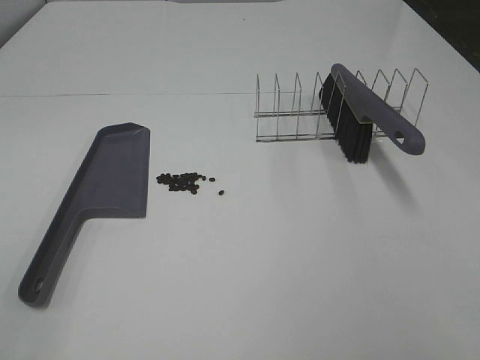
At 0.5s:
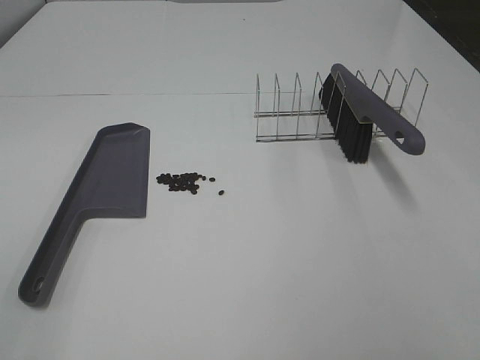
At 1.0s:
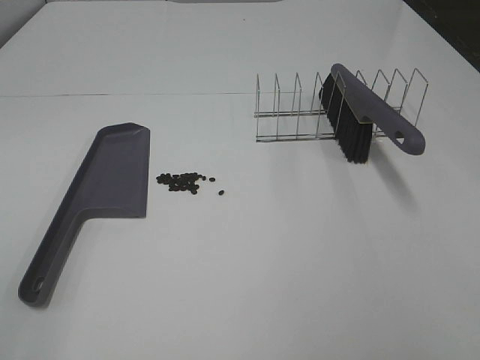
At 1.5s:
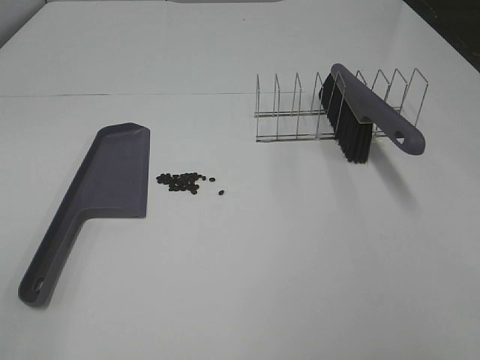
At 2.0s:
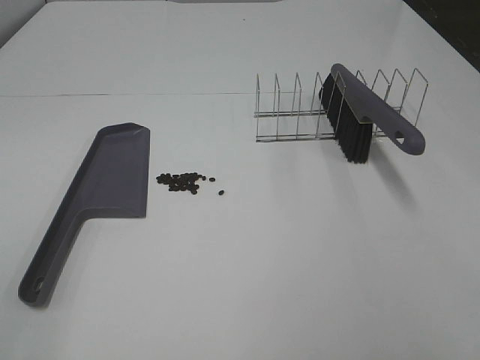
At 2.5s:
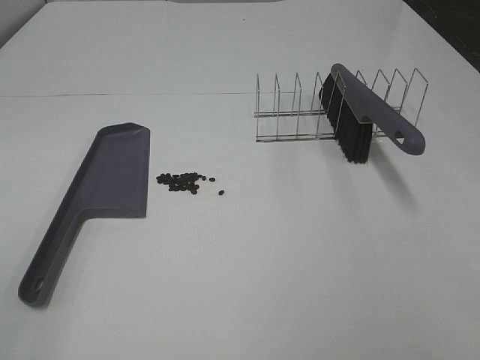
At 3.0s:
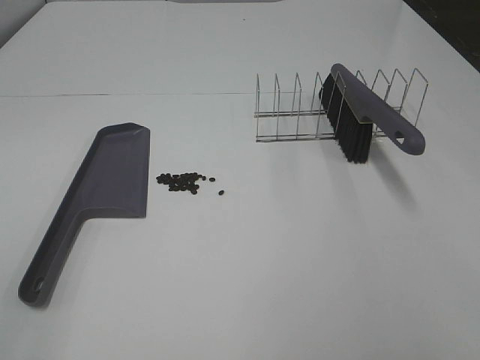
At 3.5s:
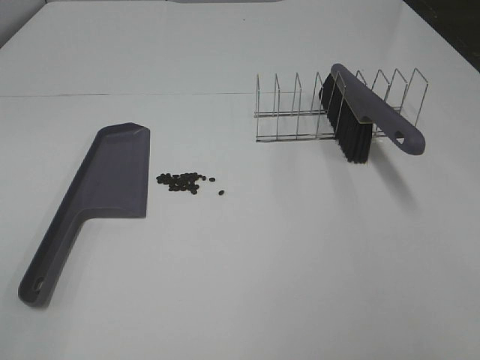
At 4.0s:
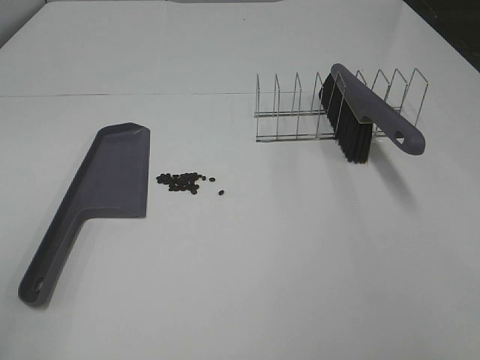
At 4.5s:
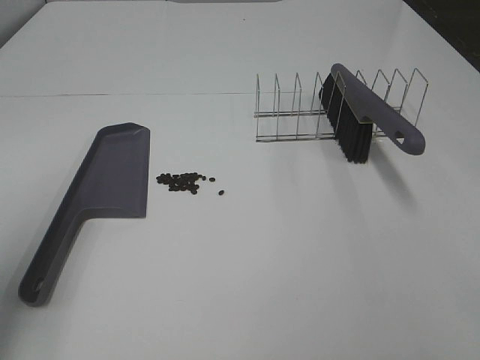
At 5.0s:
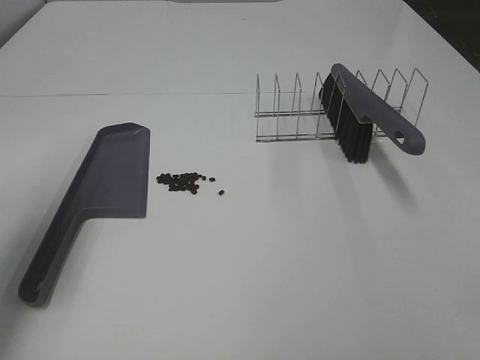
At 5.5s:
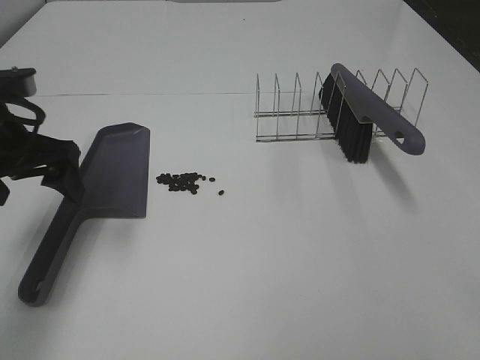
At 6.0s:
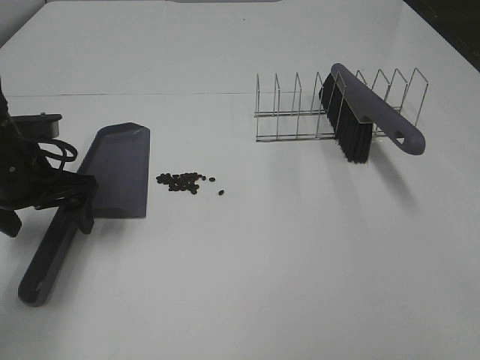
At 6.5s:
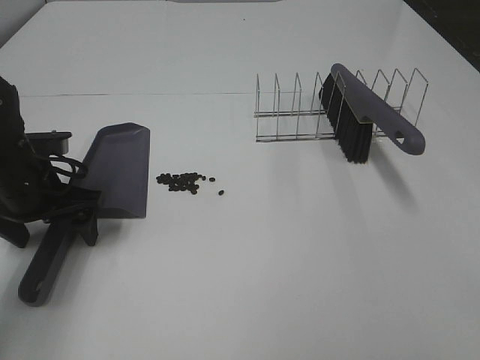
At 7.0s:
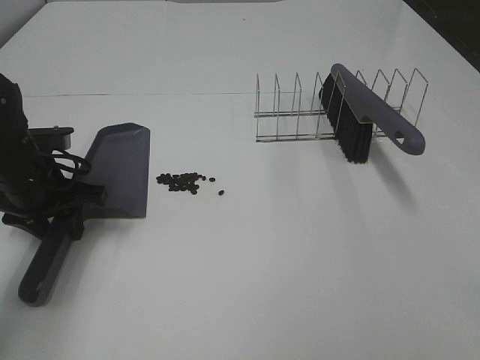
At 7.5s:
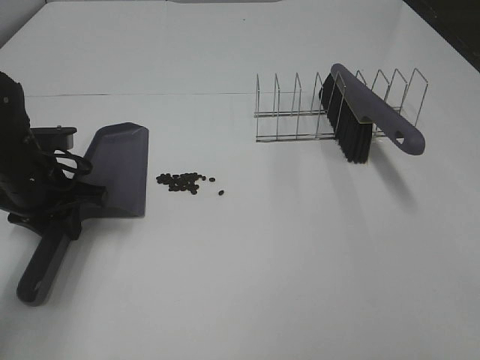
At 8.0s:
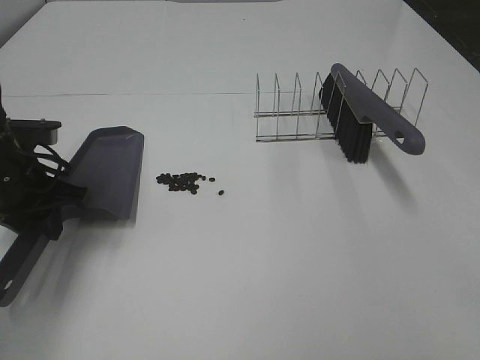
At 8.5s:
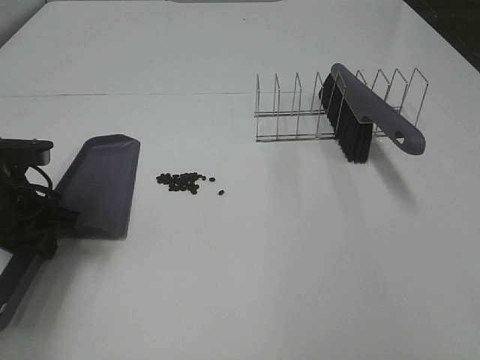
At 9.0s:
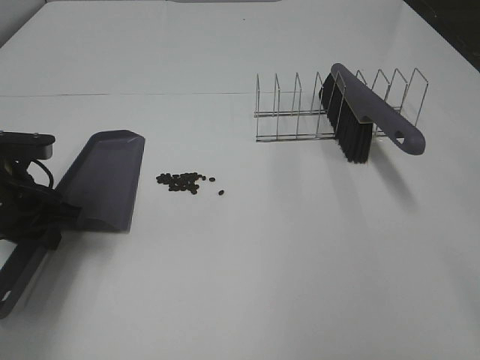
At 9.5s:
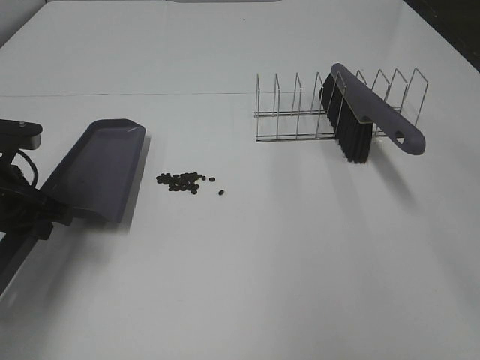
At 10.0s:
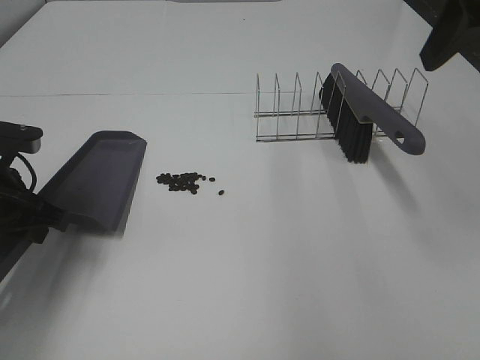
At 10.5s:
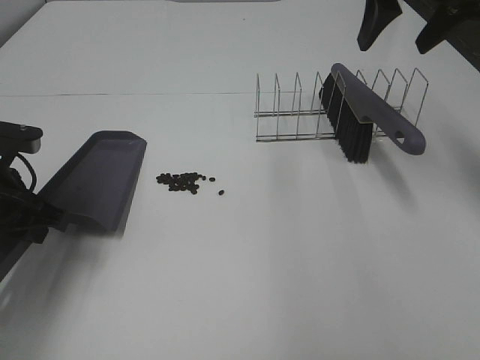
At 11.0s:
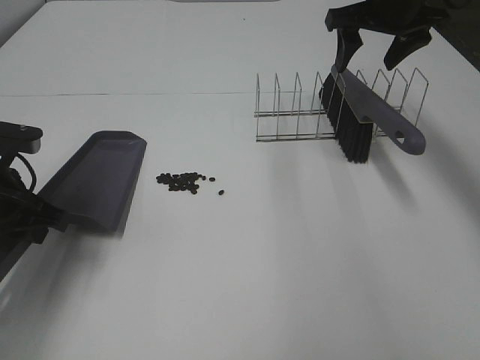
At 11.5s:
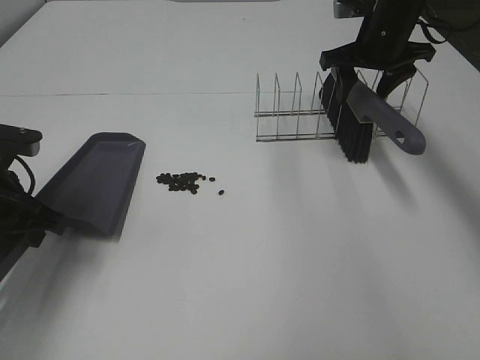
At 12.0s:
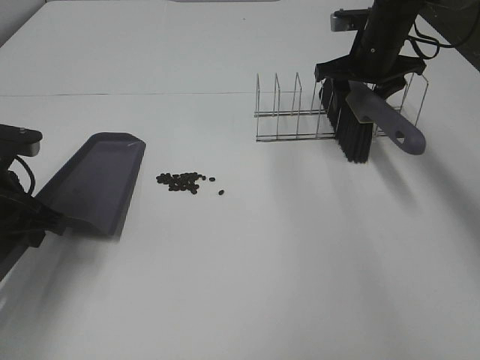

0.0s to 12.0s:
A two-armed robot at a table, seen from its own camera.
Task of the whole recording: Sweep Coffee Bean.
Step, 0.0s to 7.5s: Left hand: grab the dustpan.
0.0s to 2.0s: Both grippers stay about where they are.
4.0s to 6.0s: The left gripper goes approximately 30 cm forward and downward.
6.0s to 8.0s: The left gripper closes its fingers.
8.0s to 10.0s: The right gripper goes approximately 30 cm forward.
10.0s to 12.0s: The right gripper travels forward and downward by about 30 cm.

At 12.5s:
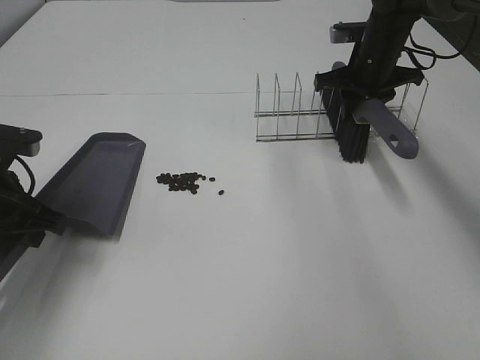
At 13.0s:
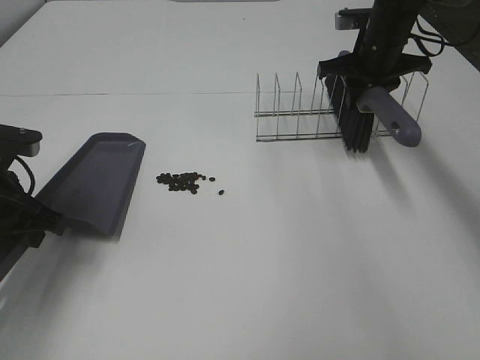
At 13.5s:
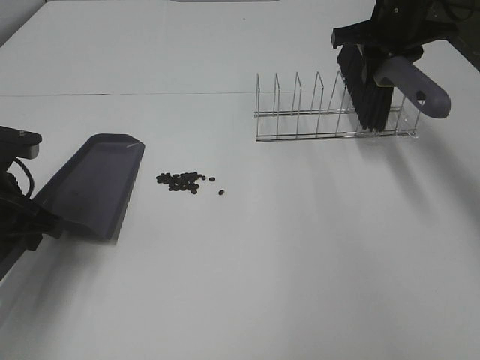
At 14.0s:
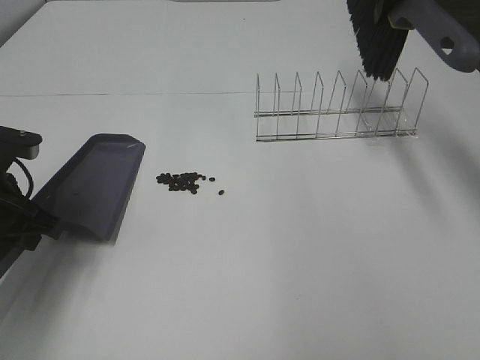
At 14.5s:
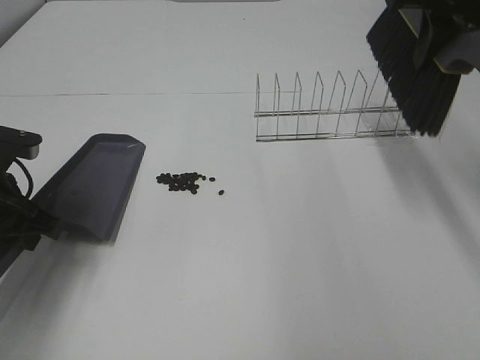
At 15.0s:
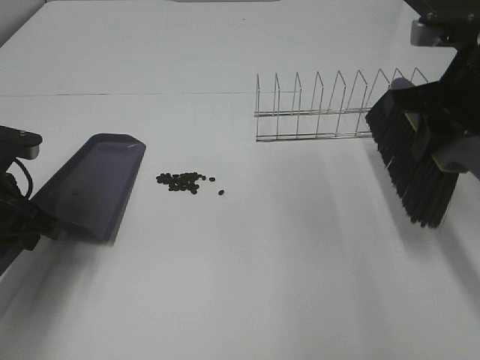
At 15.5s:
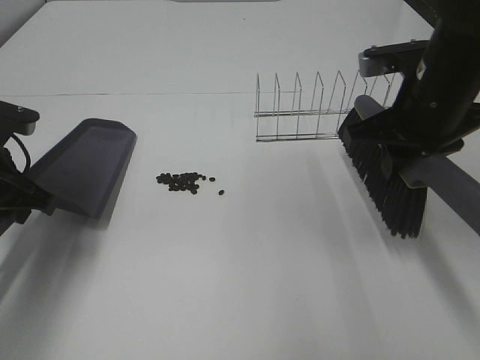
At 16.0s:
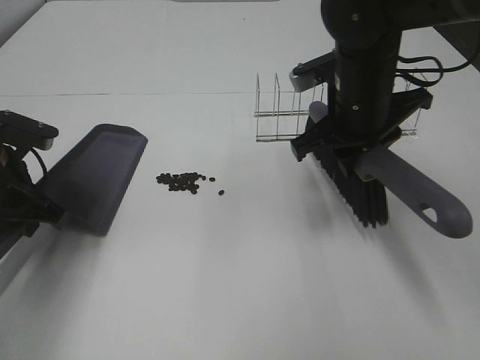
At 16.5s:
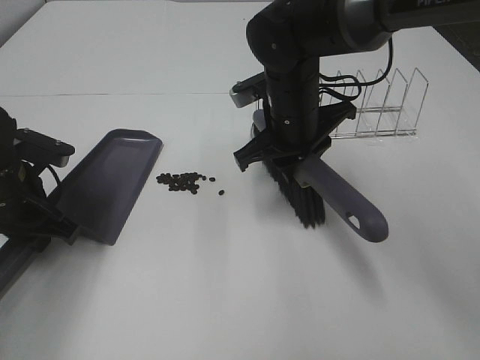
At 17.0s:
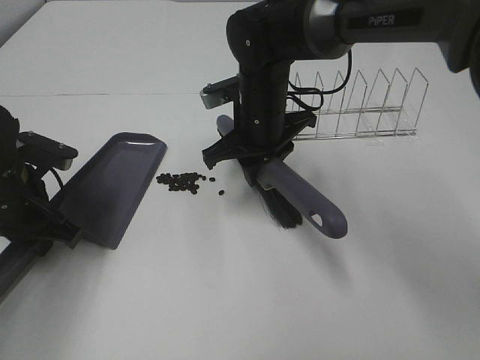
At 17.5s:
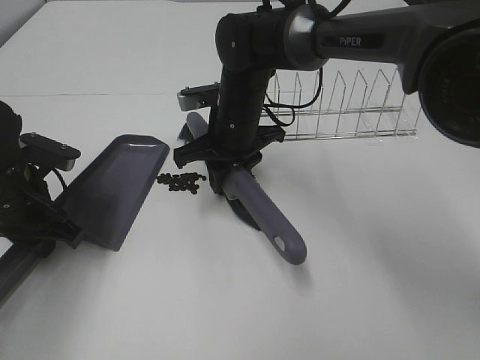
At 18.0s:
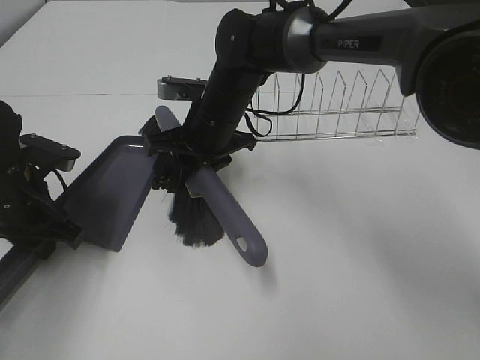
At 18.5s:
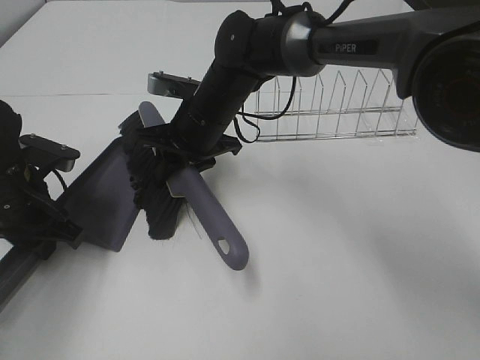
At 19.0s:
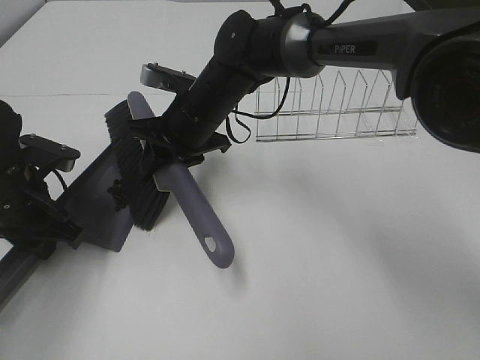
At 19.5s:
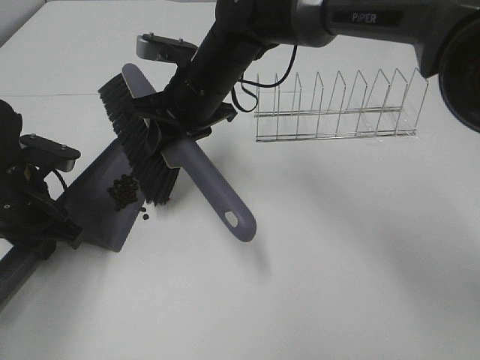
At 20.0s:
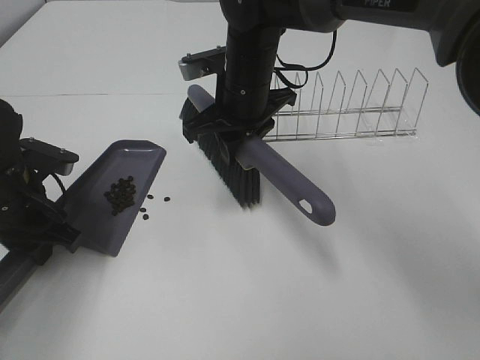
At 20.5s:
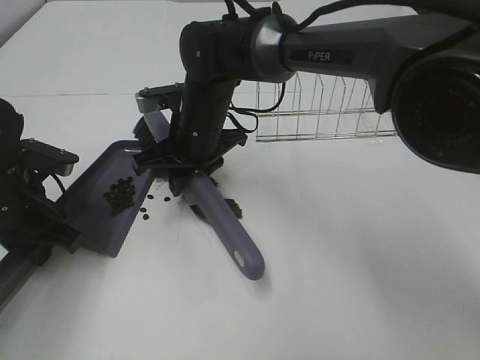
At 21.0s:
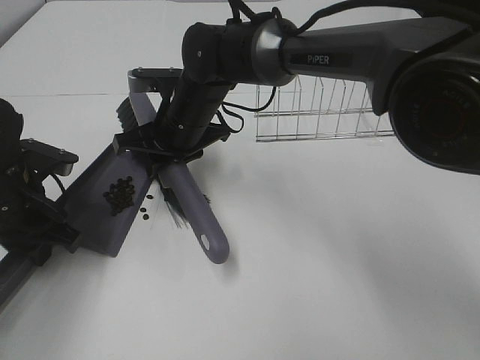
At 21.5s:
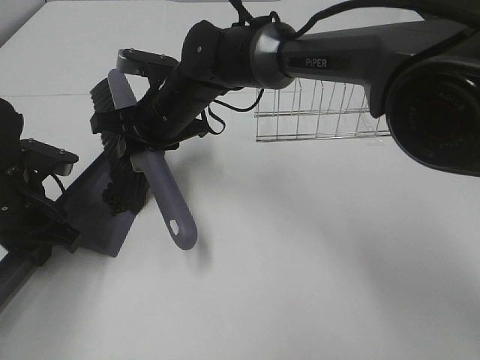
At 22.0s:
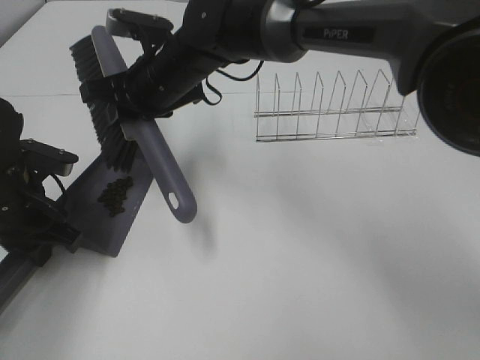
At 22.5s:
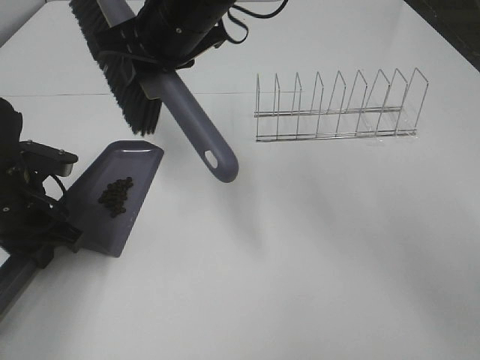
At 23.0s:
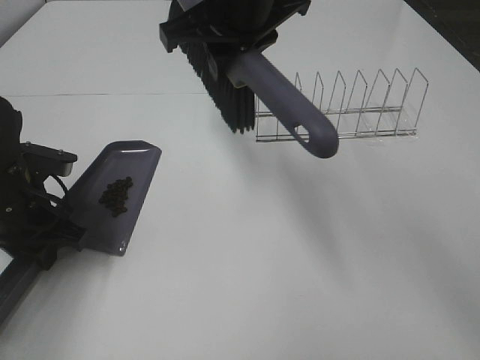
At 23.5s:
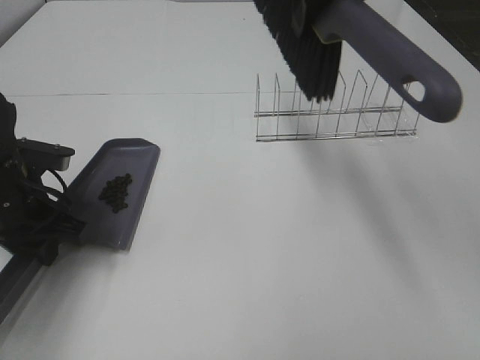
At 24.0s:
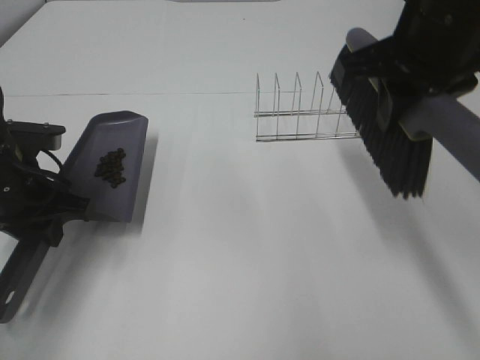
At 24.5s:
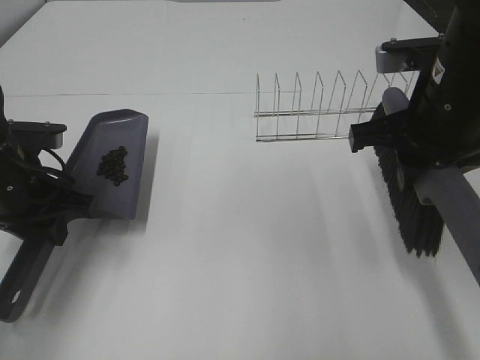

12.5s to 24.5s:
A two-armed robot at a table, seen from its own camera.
Task of the whole recording: Sweep Coffee Bean.
Step, 13.0s to 21.5s: Right hand:sweep the coffee beans into the dustpan.
12.5s to 14.5s: The right gripper shifts approximately 20 cm upward and backward.
14.5s to 16.5s: The right gripper moves to the left and downward, some 25 cm.
16.5s to 18.5s: The right gripper moves to the left, approximately 10 cm.
20.5s to 22.5s: The right gripper travels upward by roughly 15 cm.
22.5s to 24.5s: The right gripper goes about 25 cm to the right and backward.

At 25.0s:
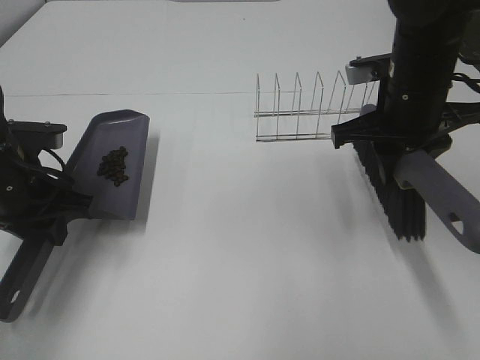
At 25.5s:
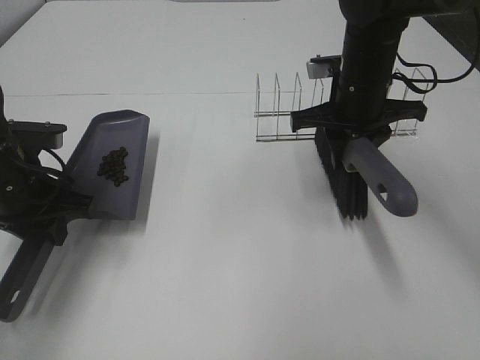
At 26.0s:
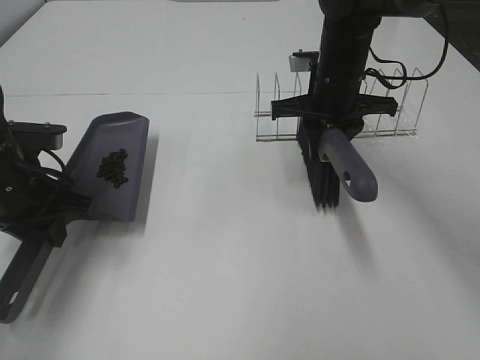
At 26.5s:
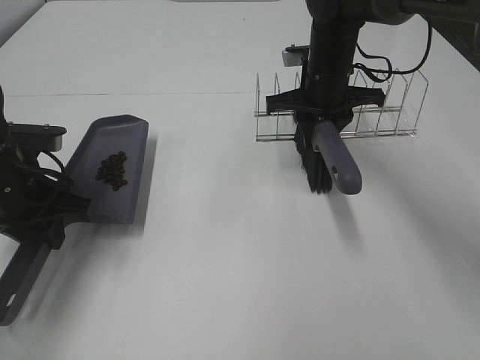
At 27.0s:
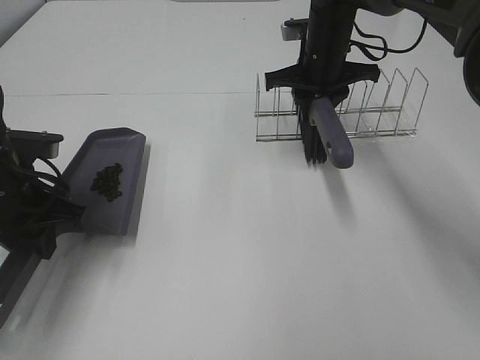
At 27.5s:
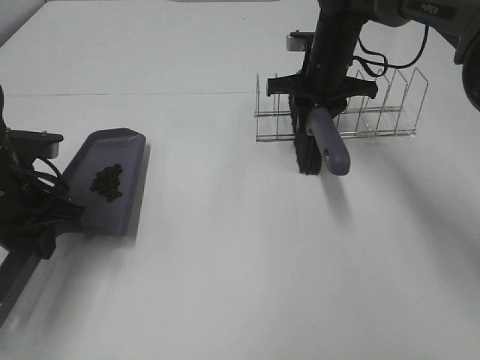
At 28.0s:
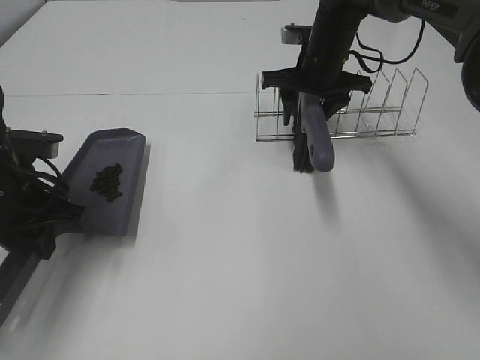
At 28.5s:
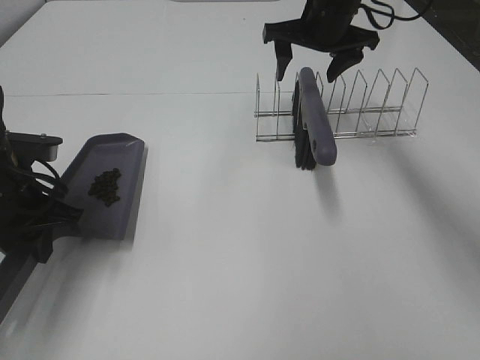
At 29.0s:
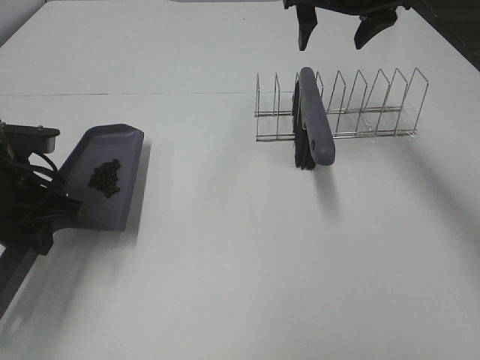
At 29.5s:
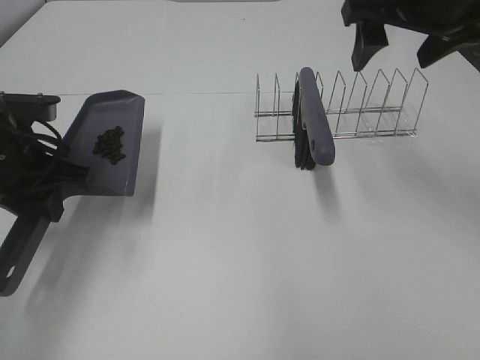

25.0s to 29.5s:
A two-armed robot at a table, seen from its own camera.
Task of the whole recording: Sweep Coffee Bean.
Step, 25.0s to 28.0s: Right hand:place the broom on the rack.
25.0s to 27.0s: The right gripper goes about 15 cm forward.
27.0s to 29.5s: The right gripper goes roughly 20 cm backward and upward, and opens its fingers.
